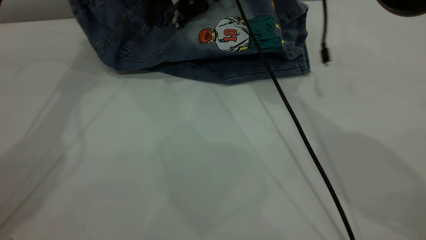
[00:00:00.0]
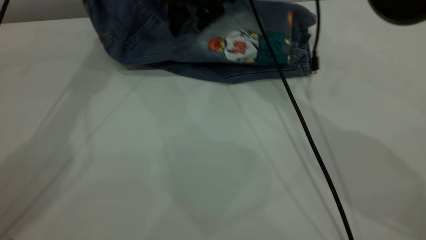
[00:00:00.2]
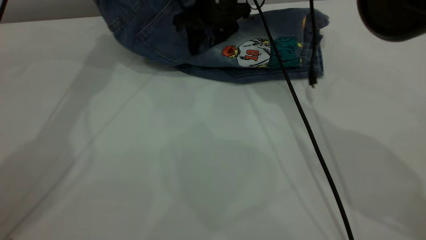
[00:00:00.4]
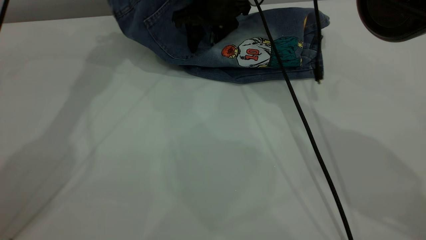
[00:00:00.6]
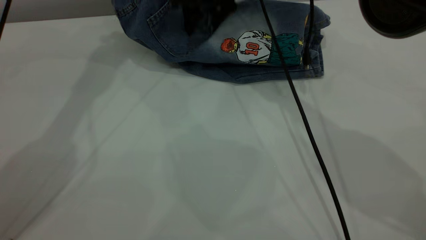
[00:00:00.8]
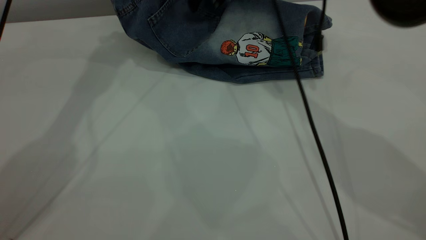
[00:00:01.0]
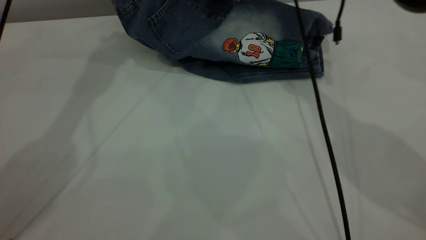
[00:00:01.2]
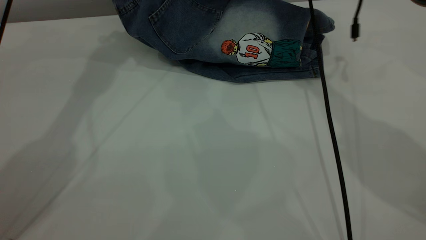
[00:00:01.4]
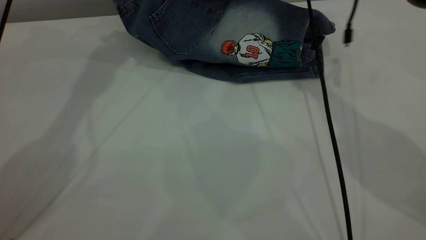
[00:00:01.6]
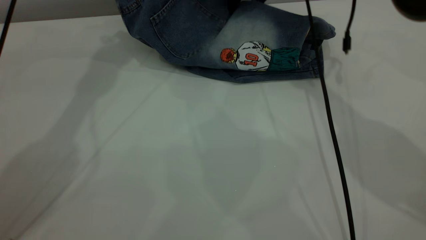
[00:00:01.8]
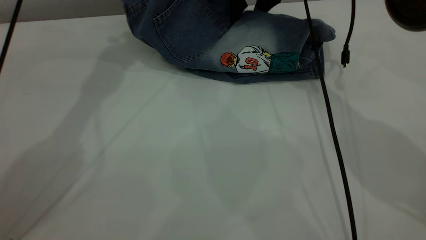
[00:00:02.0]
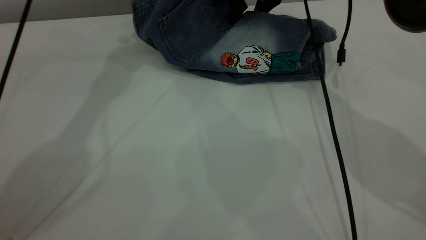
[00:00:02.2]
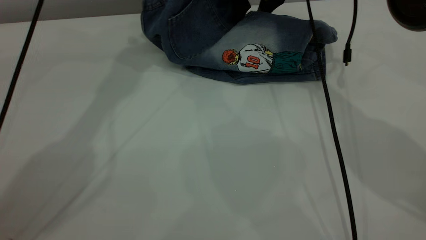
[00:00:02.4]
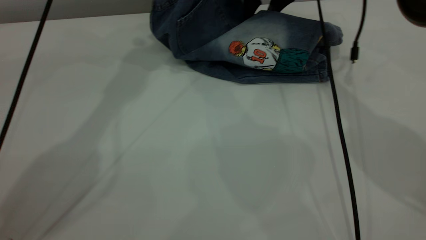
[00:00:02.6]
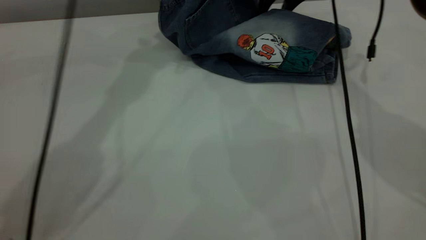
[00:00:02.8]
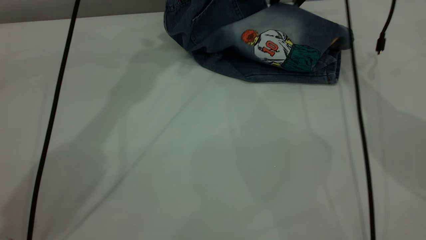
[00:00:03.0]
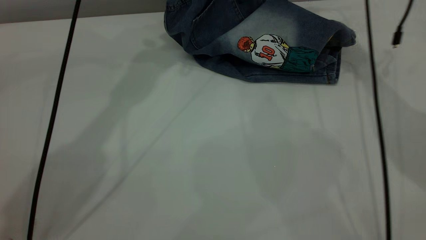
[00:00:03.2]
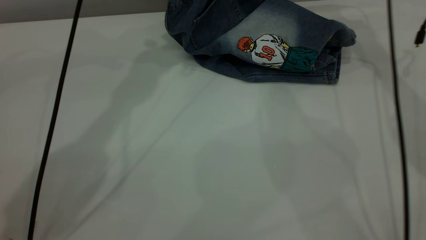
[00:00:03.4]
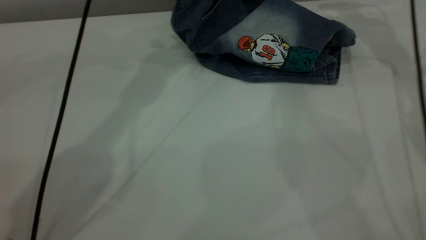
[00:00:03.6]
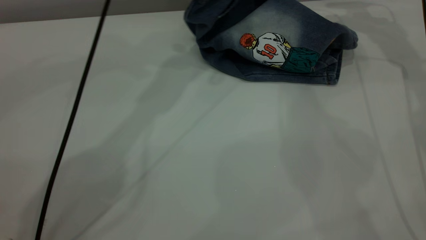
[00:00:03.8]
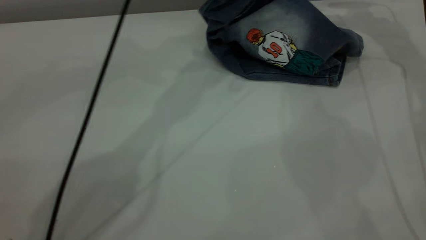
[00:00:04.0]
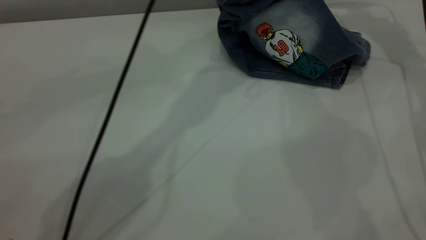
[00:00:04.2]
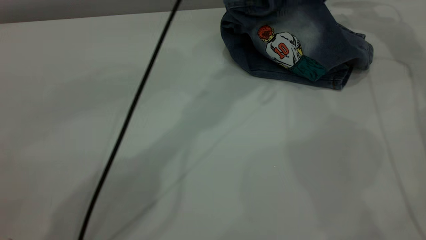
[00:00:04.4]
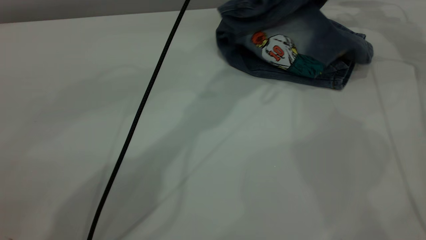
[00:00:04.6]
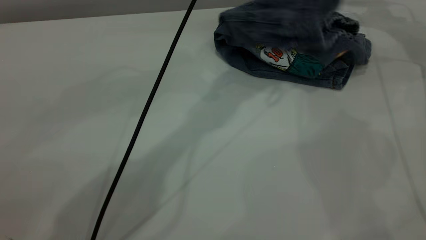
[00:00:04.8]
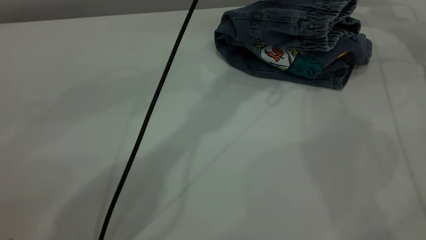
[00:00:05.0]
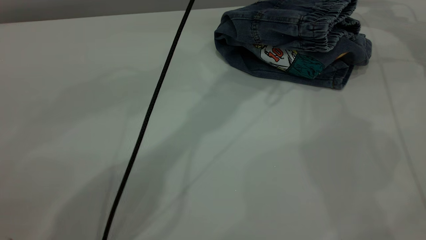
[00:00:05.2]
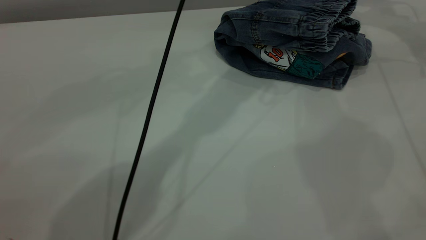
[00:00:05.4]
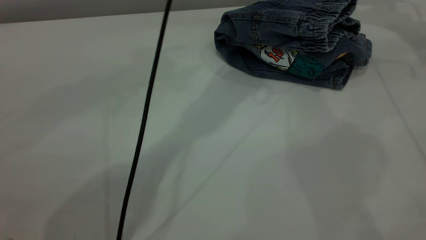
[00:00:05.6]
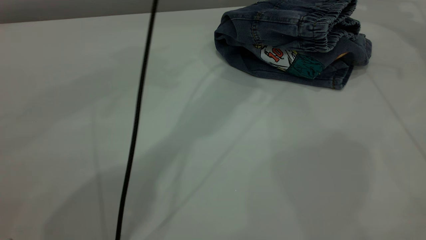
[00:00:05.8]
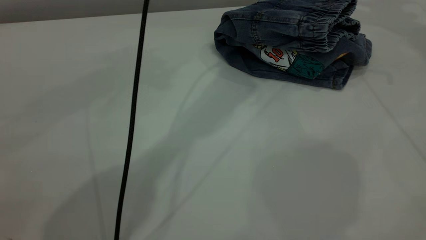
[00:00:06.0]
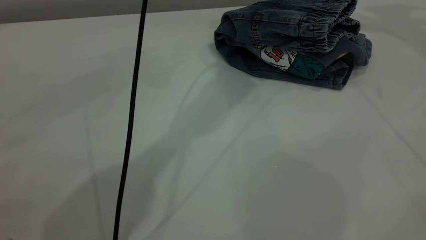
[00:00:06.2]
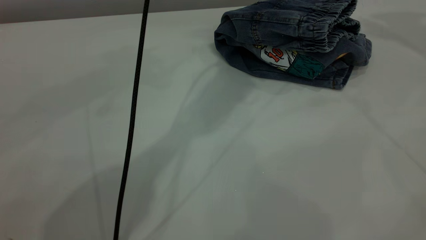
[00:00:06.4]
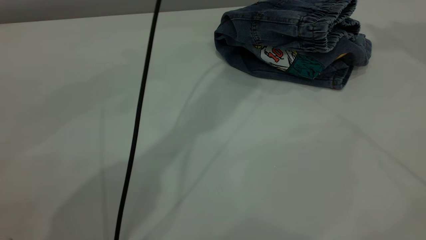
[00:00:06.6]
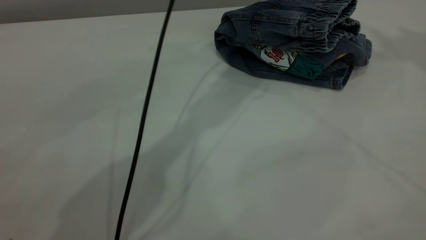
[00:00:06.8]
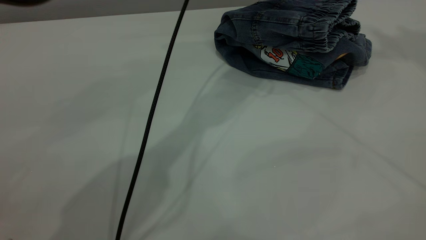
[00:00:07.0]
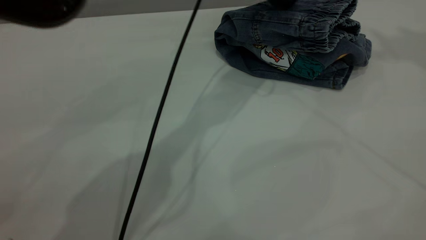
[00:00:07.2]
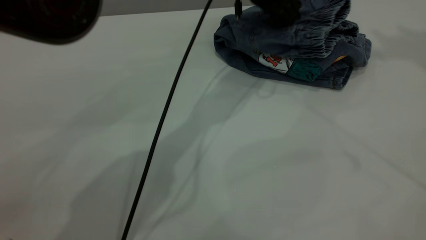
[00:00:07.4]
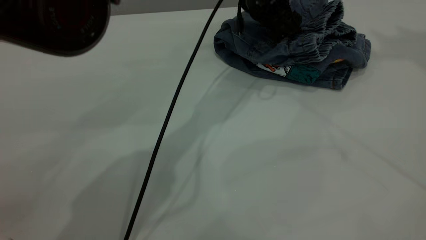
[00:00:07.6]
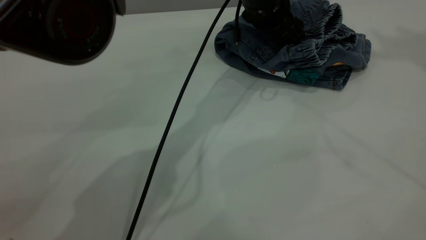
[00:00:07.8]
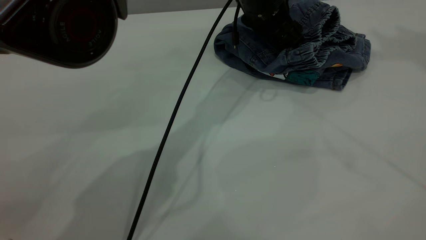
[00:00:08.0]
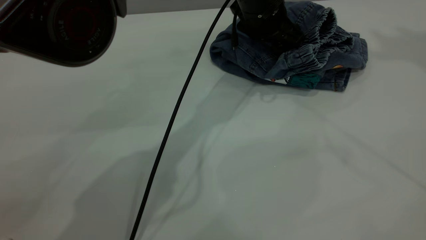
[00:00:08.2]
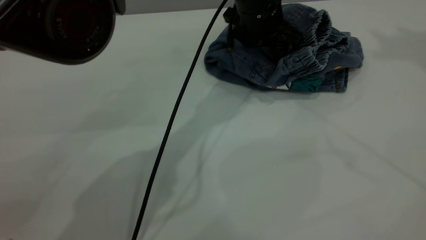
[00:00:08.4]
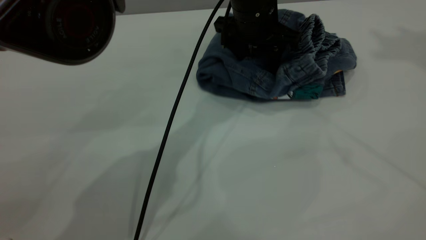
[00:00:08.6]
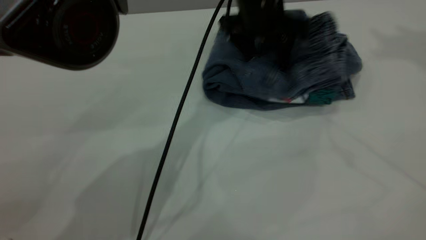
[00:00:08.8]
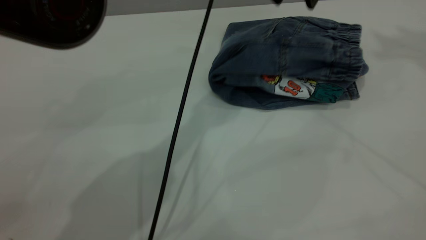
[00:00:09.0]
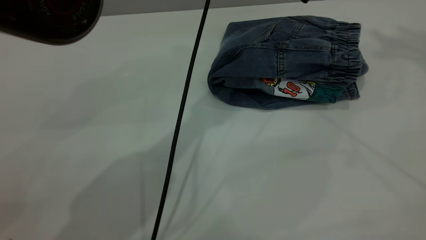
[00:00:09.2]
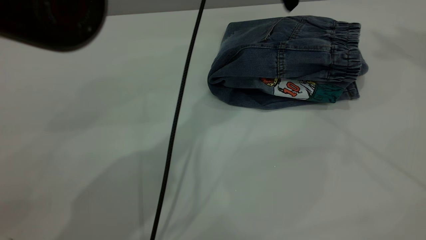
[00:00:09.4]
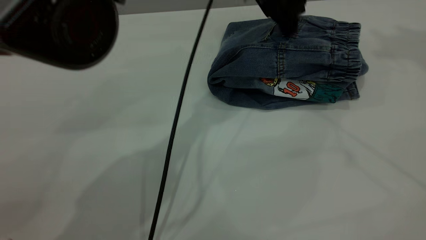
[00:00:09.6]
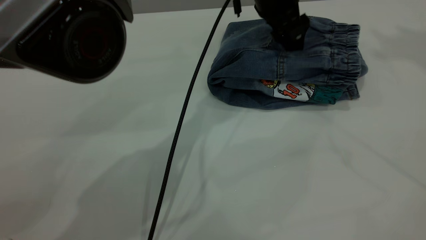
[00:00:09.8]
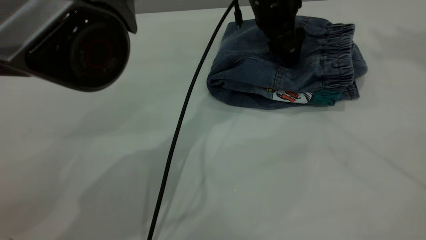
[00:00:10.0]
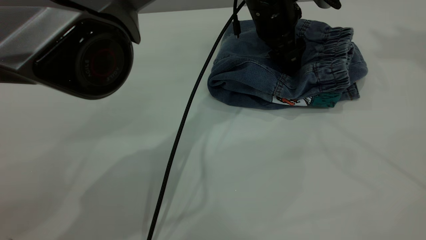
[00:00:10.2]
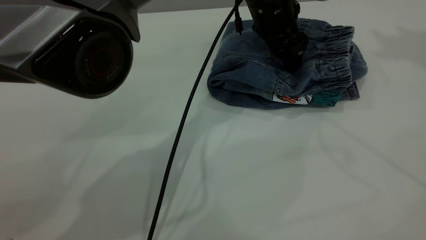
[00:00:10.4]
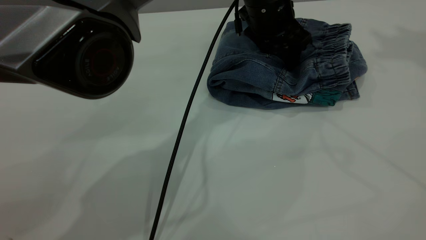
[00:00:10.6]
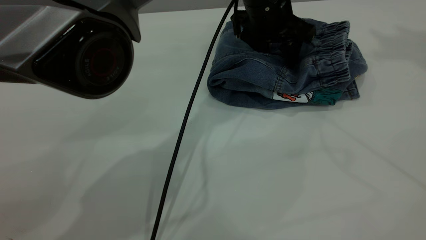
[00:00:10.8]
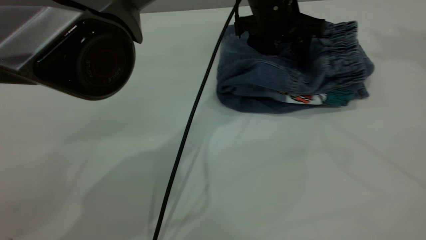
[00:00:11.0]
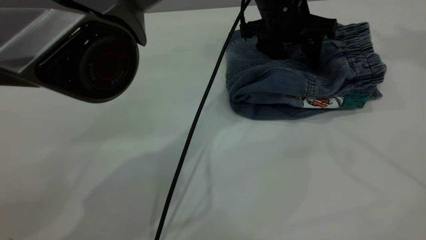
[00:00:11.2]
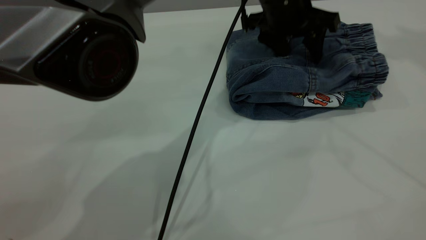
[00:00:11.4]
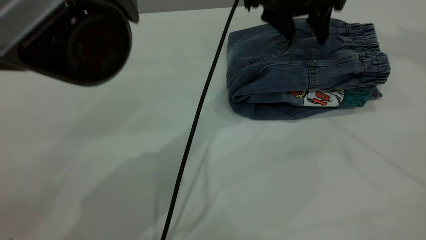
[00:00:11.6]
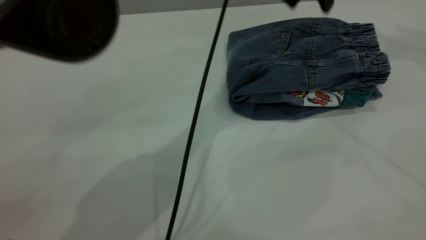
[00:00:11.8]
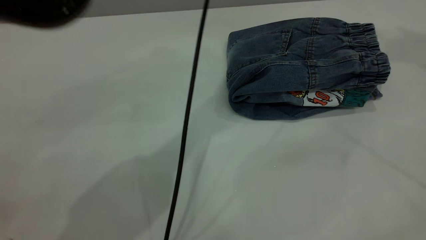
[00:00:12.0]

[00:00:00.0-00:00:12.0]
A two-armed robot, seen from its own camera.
Step, 00:00:00.0 to 00:00:05.8: Fold the pants from left to right.
00:00:00.0 to 00:00:01.6: The right gripper goes some 10 cm to the right. Meanwhile the left gripper moves upward, about 5 cm.
00:00:01.6 to 00:00:03.0: Both grippers travel together to the right, roughly 10 cm.
00:00:03.0 to 00:00:04.4: The right gripper moves to the right, about 15 cm. Meanwhile the left gripper heads to the right and backward, covering some 15 cm.
00:00:04.4 to 00:00:06.0: The right gripper travels upward by roughly 15 cm; the left gripper ends up roughly 5 cm from where it was, and opens its fingers.
00:00:06.0 to 00:00:07.6: The left gripper moves downward, about 15 cm, while the right gripper is displaced upward and backward by roughly 25 cm.
00:00:07.6 to 00:00:09.0: The left gripper moves upward, about 10 cm.
00:00:09.0 to 00:00:10.4: The left gripper is displaced downward by some 10 cm.
00:00:10.4 to 00:00:12.0: The left gripper moves upward, some 15 cm.

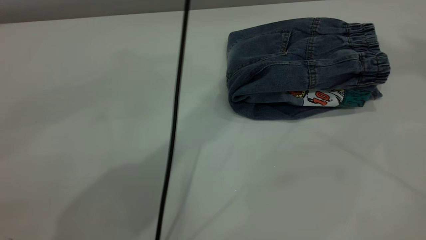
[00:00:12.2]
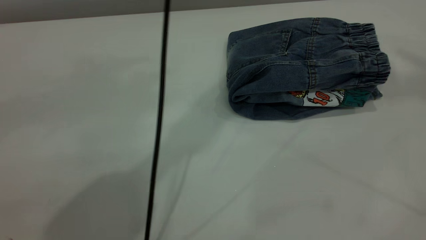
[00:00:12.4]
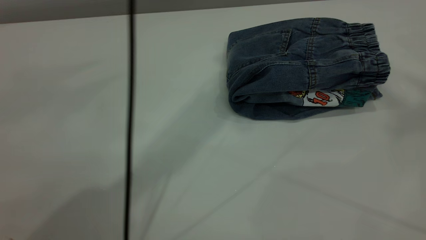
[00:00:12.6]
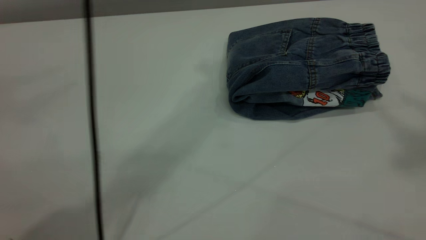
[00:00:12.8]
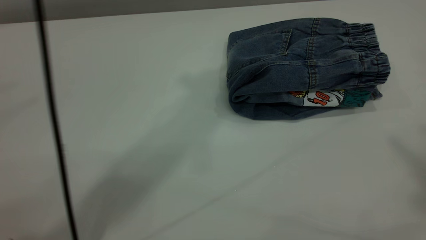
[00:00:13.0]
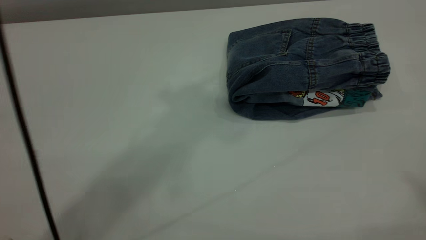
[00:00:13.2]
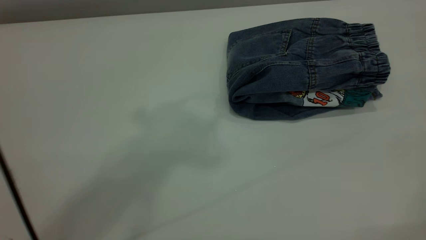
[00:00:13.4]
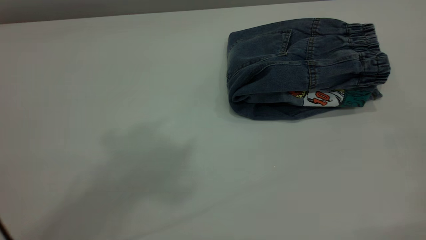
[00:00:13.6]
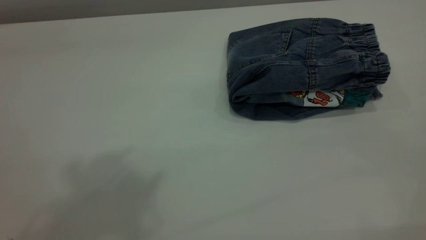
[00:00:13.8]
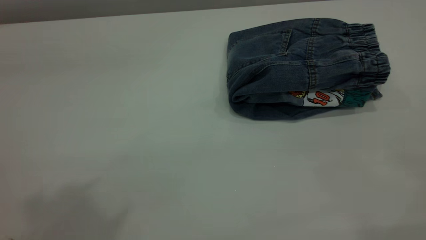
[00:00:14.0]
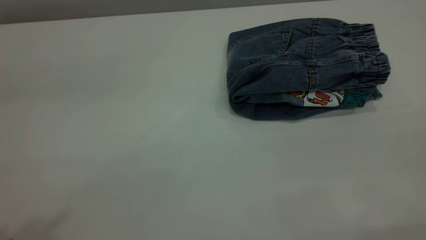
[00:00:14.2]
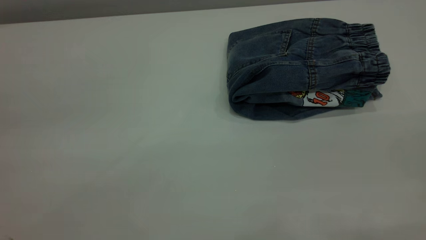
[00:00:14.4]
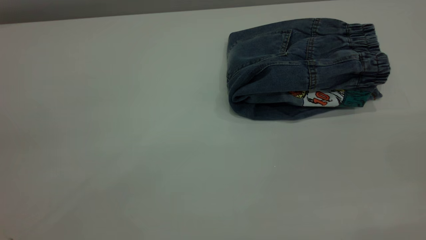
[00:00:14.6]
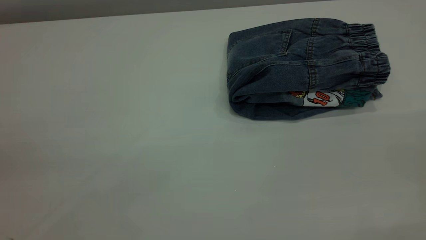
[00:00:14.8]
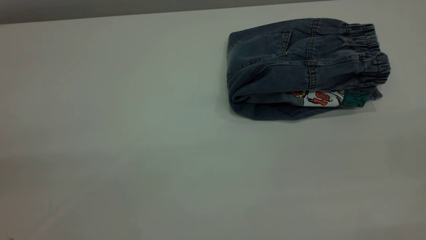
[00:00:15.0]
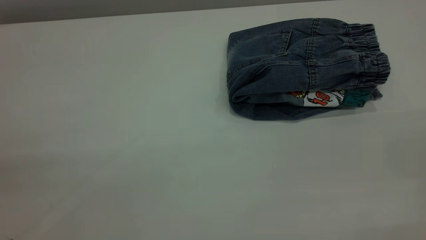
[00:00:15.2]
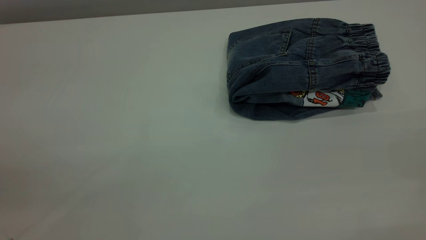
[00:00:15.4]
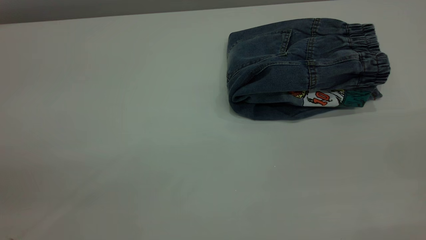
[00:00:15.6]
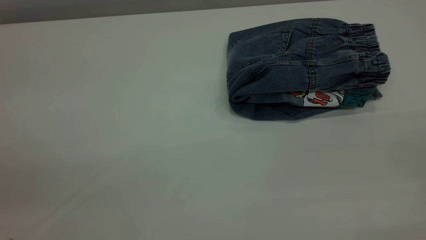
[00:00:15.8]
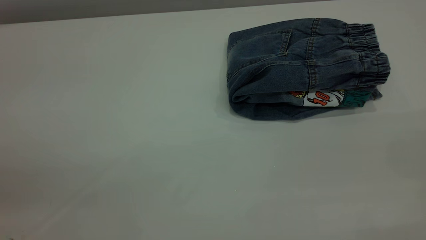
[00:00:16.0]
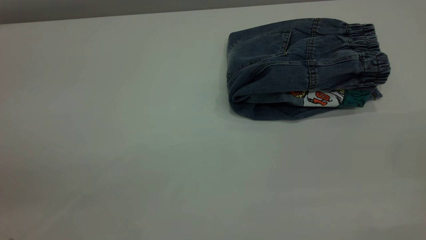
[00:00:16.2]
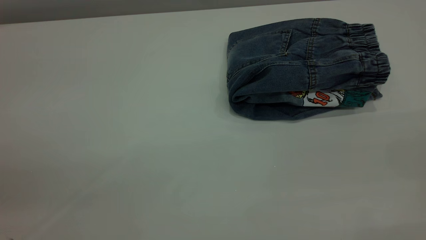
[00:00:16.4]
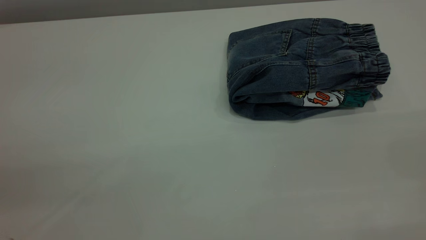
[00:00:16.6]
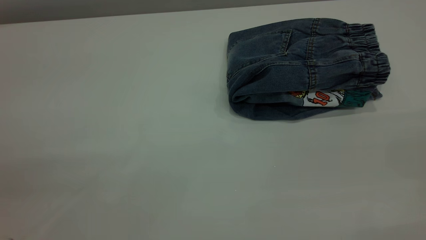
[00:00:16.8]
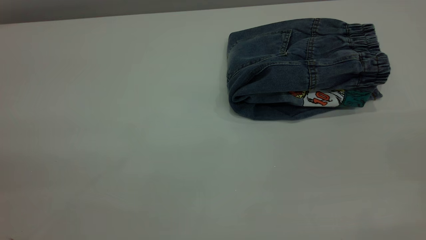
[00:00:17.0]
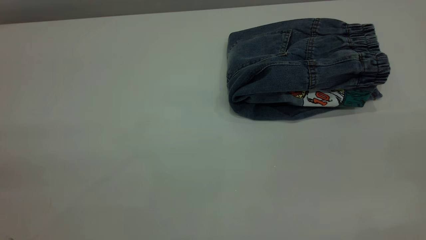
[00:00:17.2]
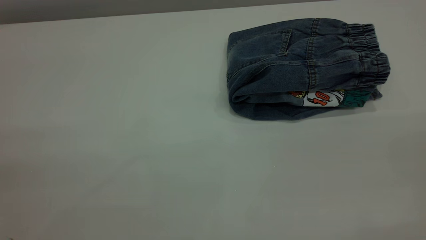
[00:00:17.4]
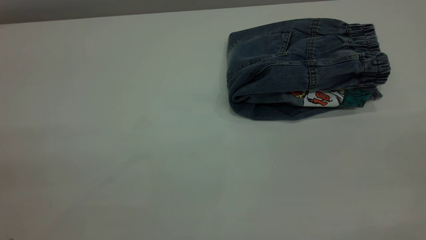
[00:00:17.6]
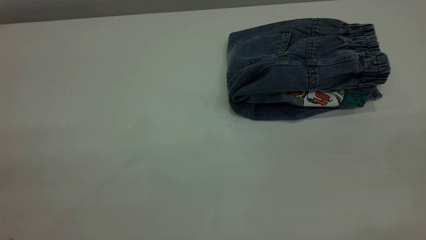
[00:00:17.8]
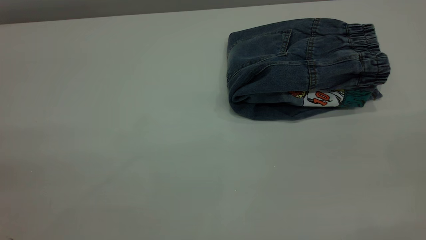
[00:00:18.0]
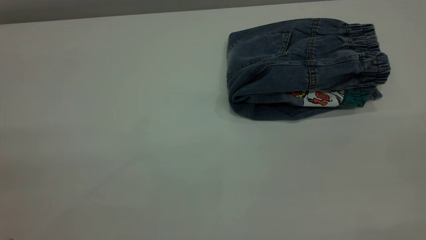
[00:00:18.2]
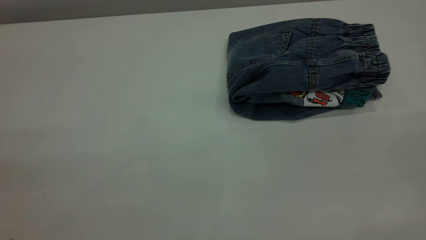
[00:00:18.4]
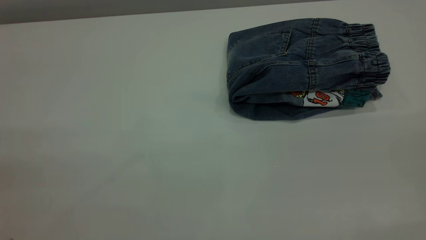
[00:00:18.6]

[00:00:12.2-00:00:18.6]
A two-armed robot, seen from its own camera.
00:00:12.2 to 00:00:13.8: The right gripper moves backward, about 35 cm; the left gripper shifts some 40 cm backward, to the left and upward.
